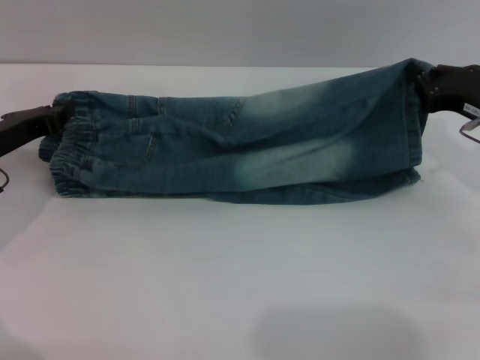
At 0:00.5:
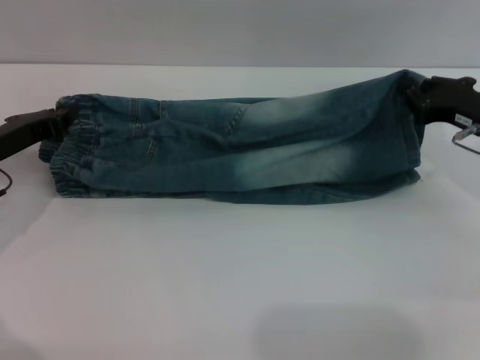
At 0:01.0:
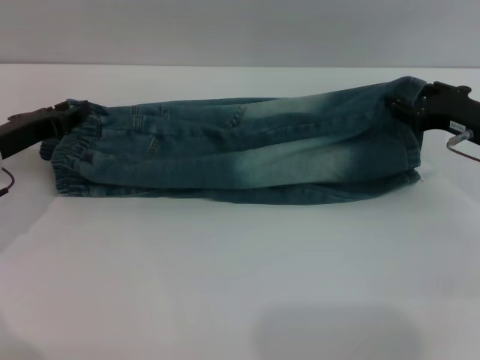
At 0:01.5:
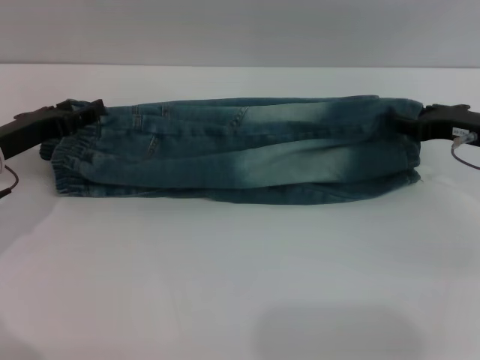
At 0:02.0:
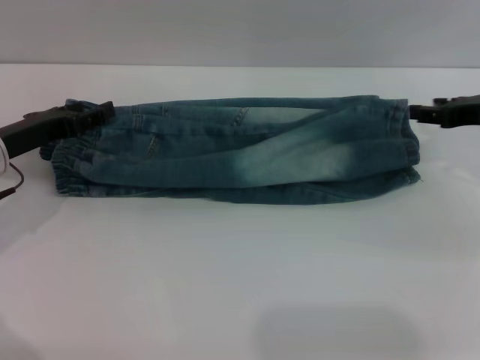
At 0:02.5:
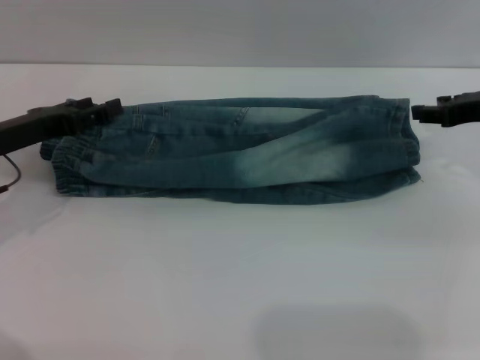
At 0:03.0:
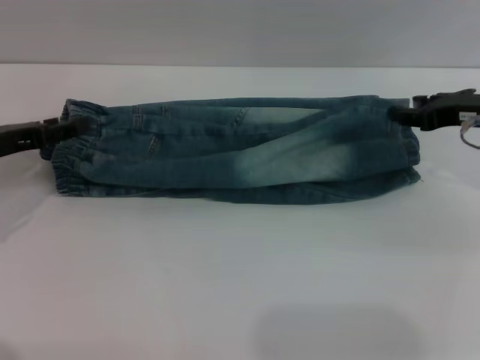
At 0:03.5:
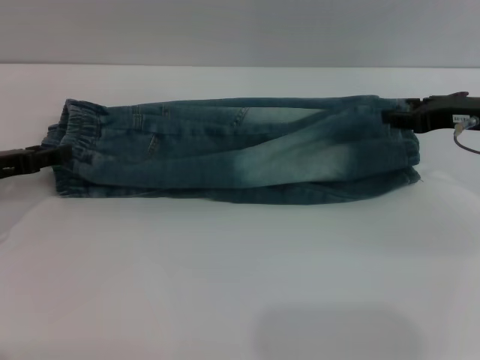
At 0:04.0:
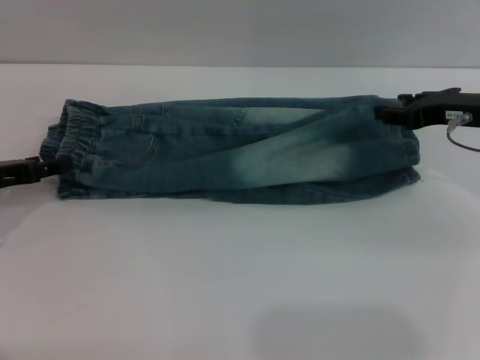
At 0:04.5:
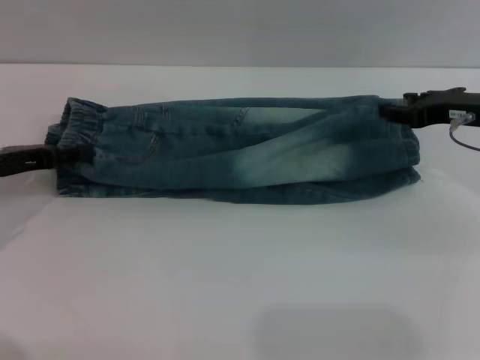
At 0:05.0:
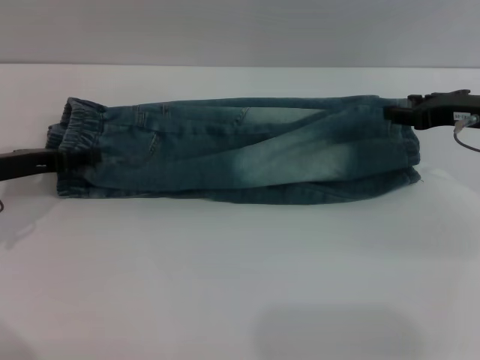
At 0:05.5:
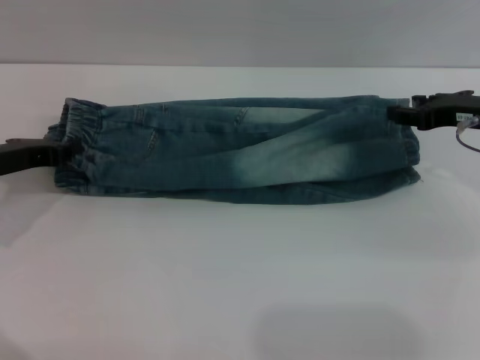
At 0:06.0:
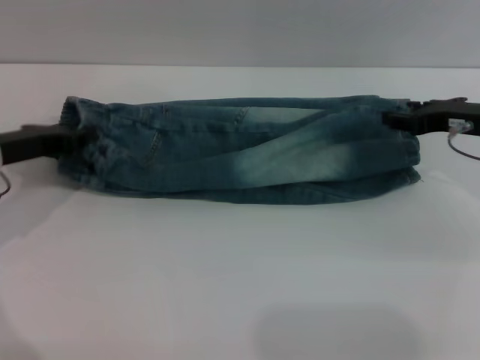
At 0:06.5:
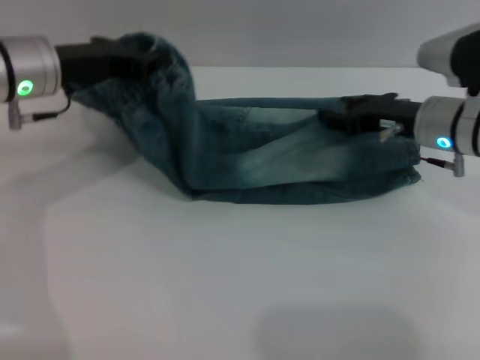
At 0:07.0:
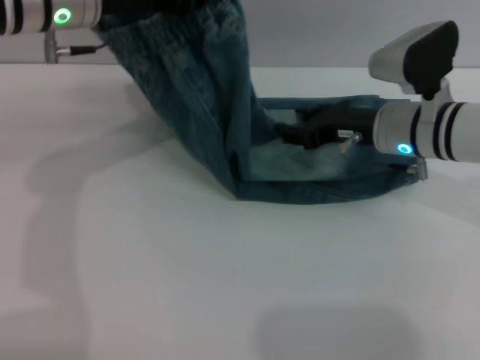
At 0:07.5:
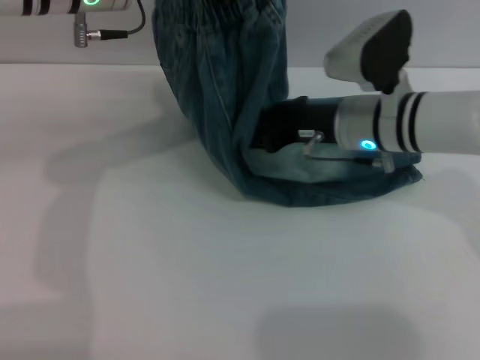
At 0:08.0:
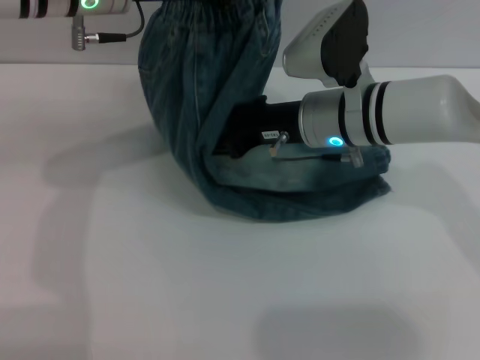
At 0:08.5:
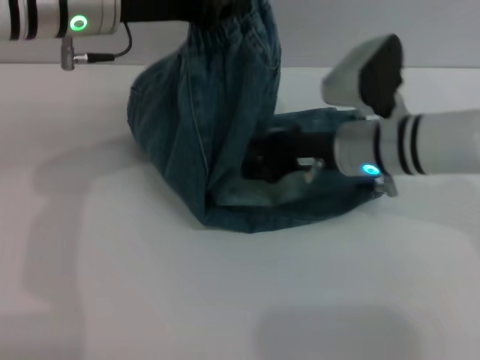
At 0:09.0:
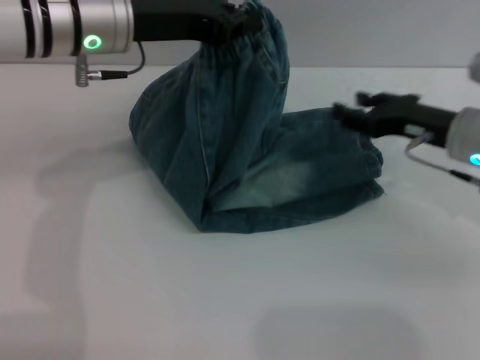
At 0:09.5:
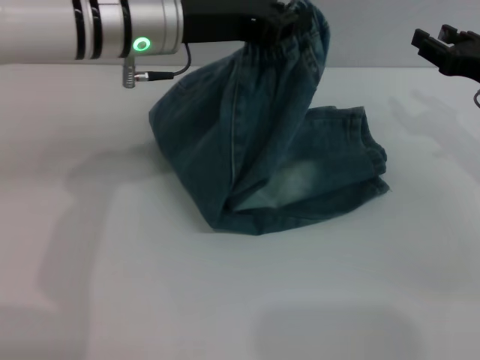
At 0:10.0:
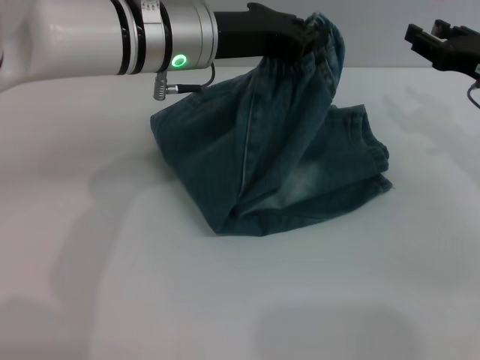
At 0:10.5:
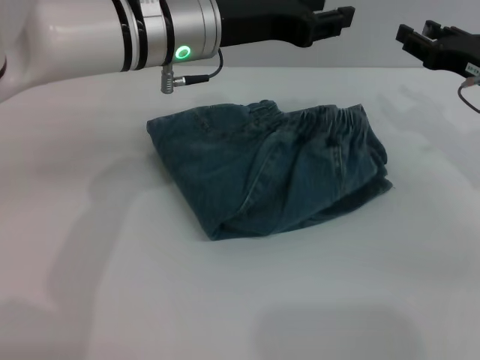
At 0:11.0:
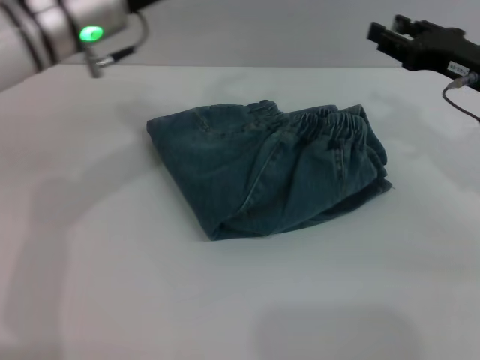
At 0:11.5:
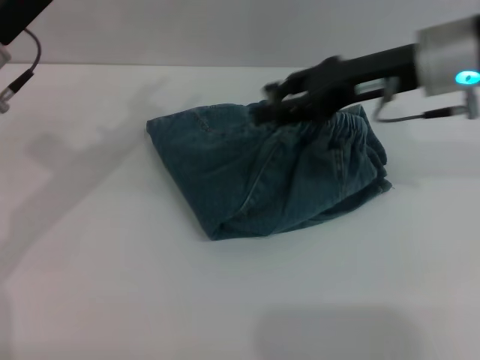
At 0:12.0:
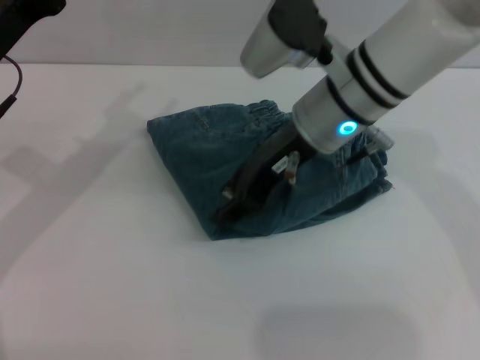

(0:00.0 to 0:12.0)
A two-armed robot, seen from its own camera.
Step, 0:00.0 - 0:02.5: Fold the bottom of the pants upward with both grippers.
Step, 0:03.0 - 0:10.0: Fold the pants from left to right with the left gripper.
0:00.0 - 0:02.0: The left gripper opens. The right gripper opens up.
0:02.0 - 0:04.0: The left gripper changes place by about 5 cm.
0:04.0 - 0:06.0: The left gripper changes place by about 5 cm, and closes up.
0:06.0 - 0:08.0: The left gripper goes approximately 20 cm upward, to the right and forward; the right gripper moves to the left, roughly 20 cm.
0:08.0 - 0:10.0: The left gripper travels to the right by roughly 5 cm, while the right gripper goes some 20 cm to the right.
0:10.0 - 0:12.0: Both grippers travel together to the left, approximately 20 cm. The left gripper opens.

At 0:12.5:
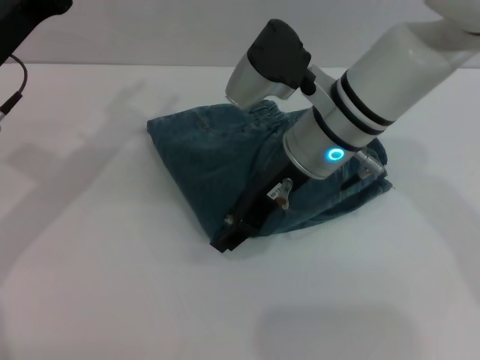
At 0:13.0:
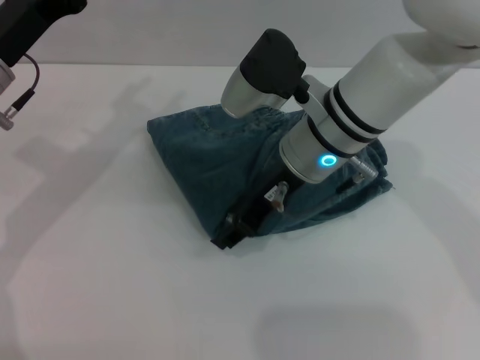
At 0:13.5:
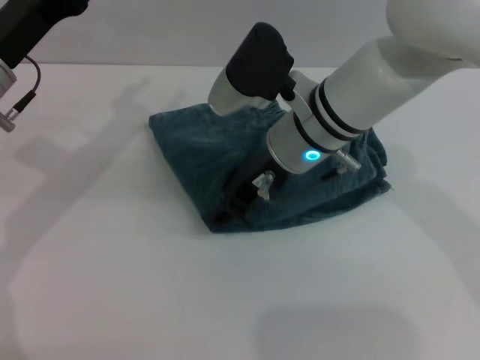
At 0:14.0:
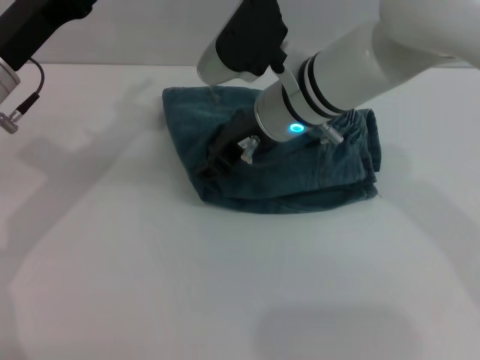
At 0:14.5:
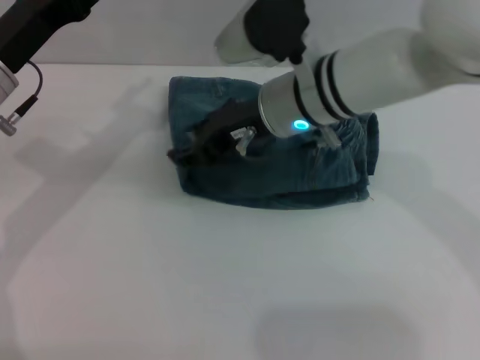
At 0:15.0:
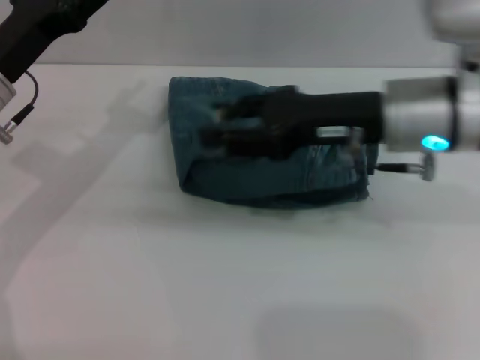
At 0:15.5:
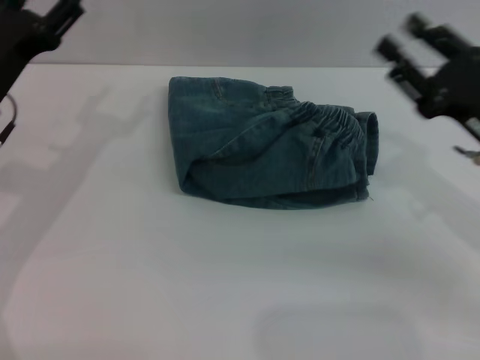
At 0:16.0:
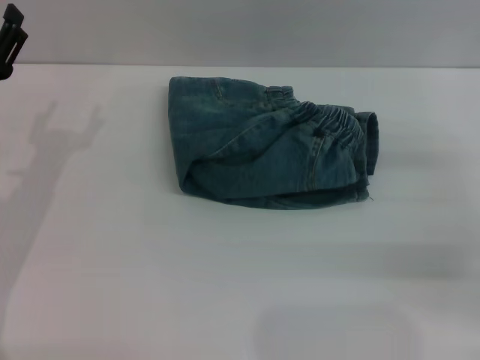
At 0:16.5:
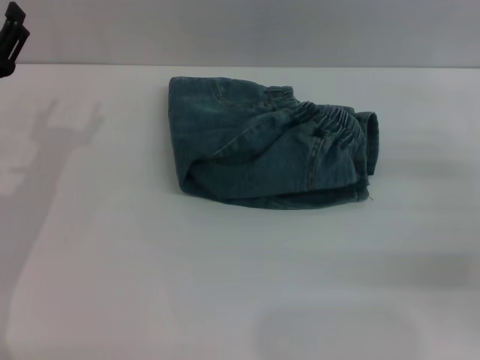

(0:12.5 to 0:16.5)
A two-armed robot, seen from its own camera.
Step, 0:12.5 - 0:14.5: Place the folded trousers onto the center area with the right grippers.
0:14.5 - 0:16.5: The right gripper heads to the right and backward, covering roughly 30 cm; the left gripper heads downward, covering some 5 cm.

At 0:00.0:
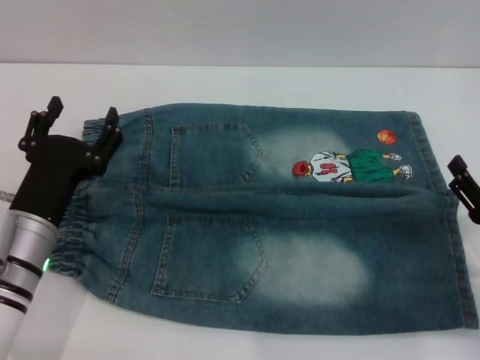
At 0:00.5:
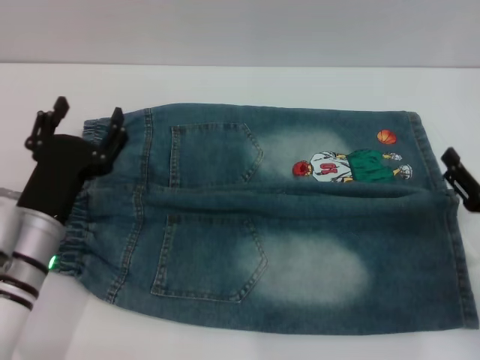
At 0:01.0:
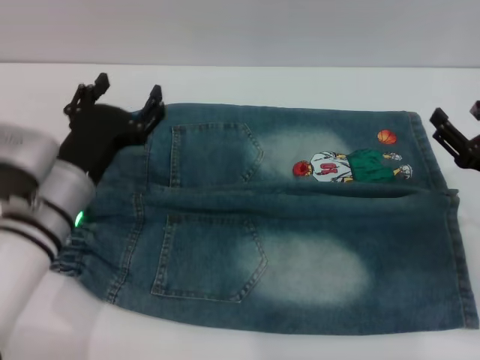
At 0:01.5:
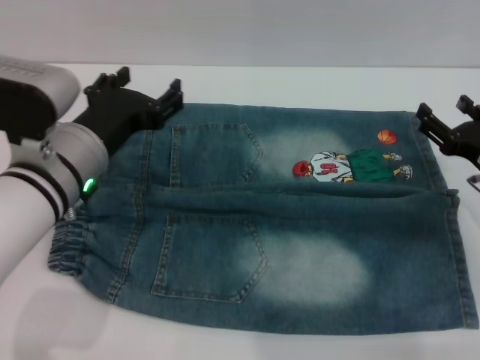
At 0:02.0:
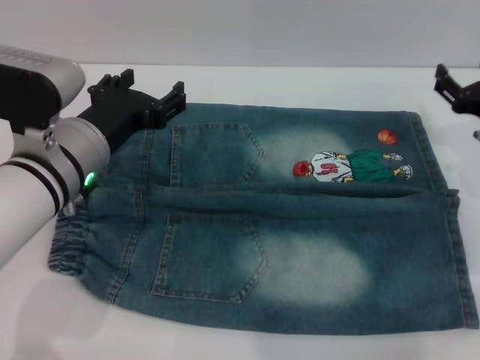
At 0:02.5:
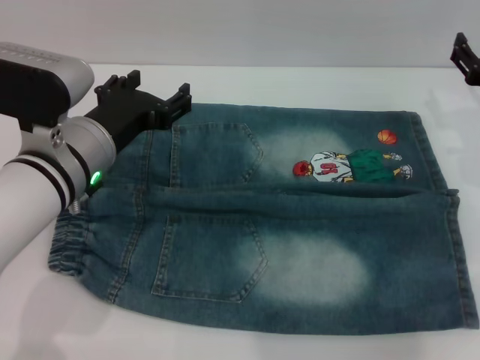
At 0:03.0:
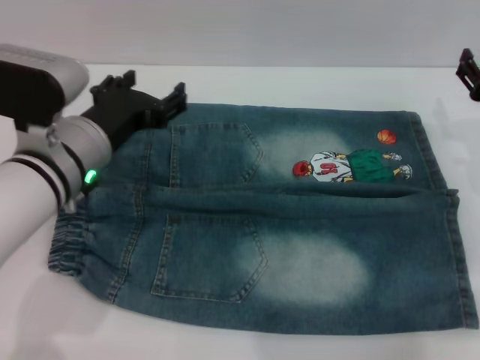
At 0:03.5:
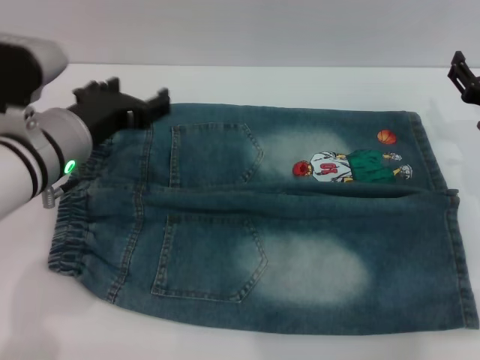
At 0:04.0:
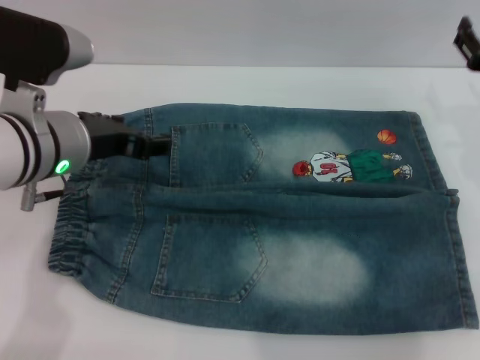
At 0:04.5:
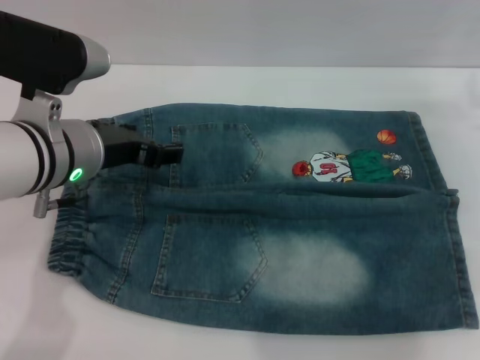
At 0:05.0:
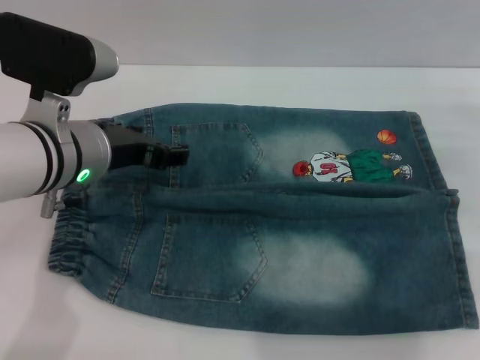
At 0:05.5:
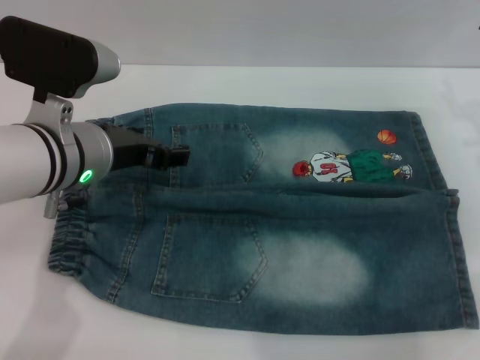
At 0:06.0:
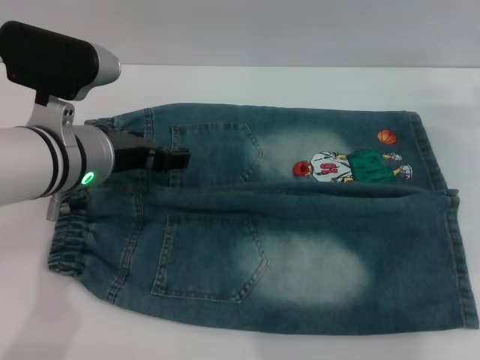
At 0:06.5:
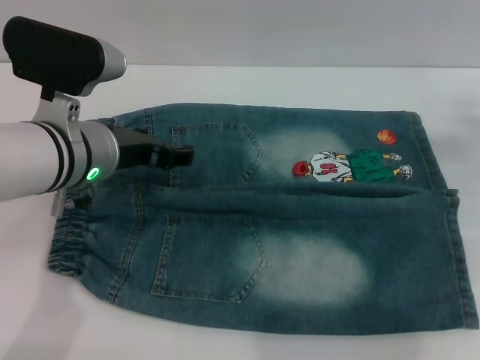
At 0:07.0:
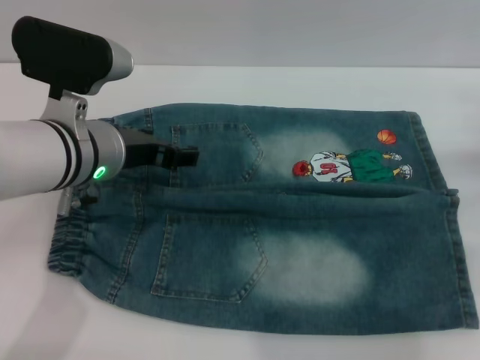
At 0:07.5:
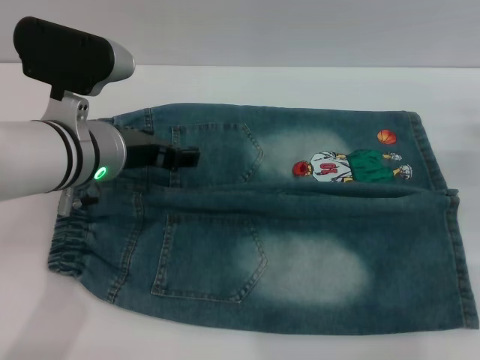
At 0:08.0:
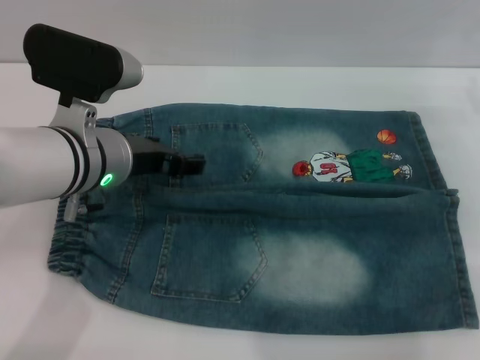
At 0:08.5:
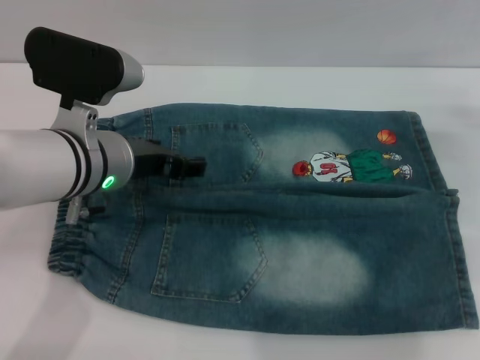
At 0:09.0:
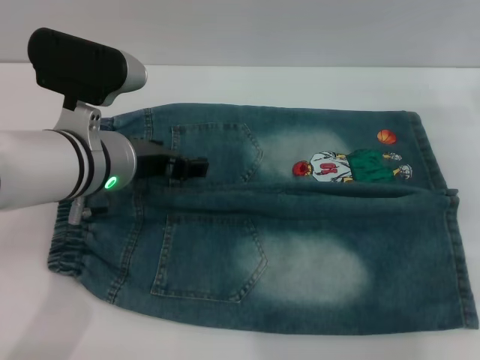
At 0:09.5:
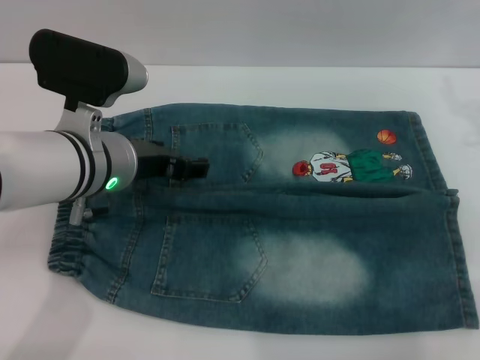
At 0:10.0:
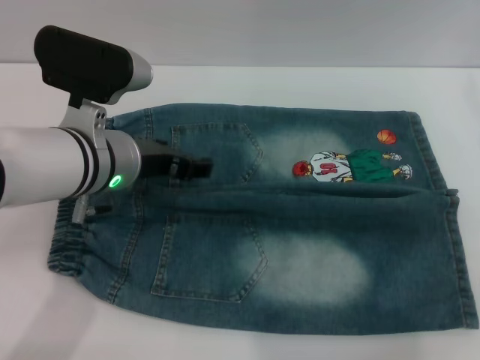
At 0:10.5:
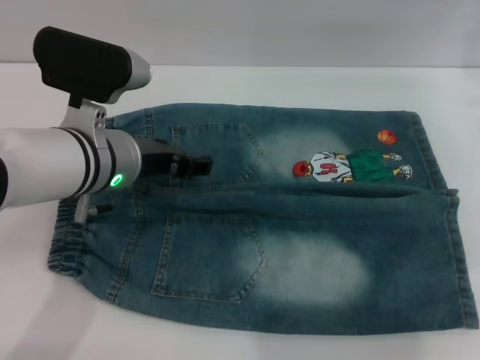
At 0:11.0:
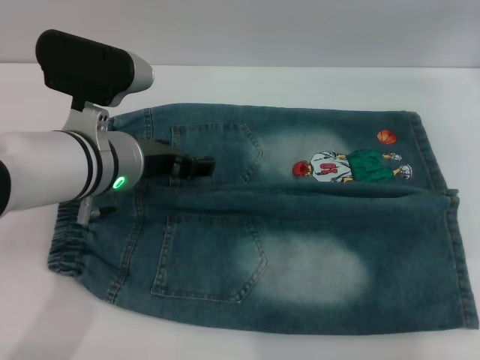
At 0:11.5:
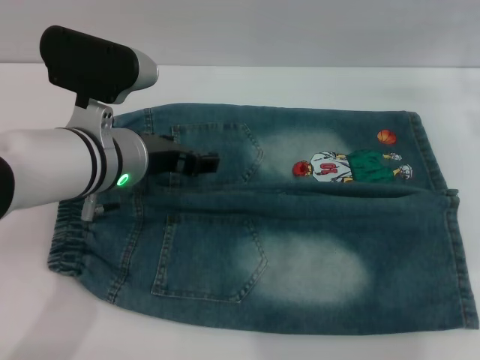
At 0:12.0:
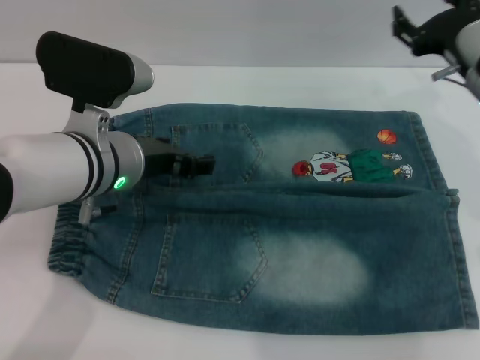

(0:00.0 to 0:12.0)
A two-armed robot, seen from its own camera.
0:00.0 - 0:02.0: The left gripper heads upward and forward, covering roughly 10 cm; the right gripper goes some 15 cm forward.
0:04.0 - 0:06.0: The right gripper ends up approximately 5 cm from where it was.
0:10.0 - 0:12.0: The right gripper travels to the left and forward by approximately 10 cm.
